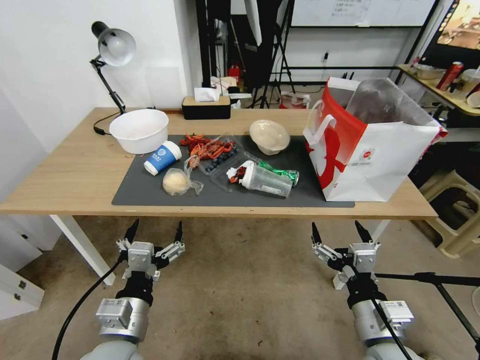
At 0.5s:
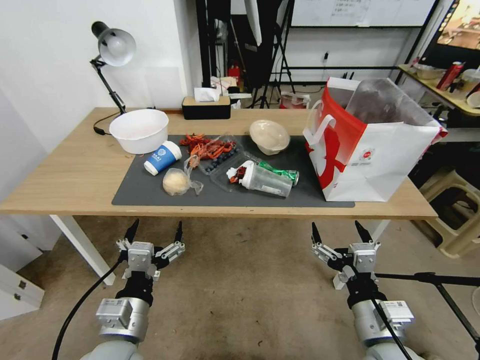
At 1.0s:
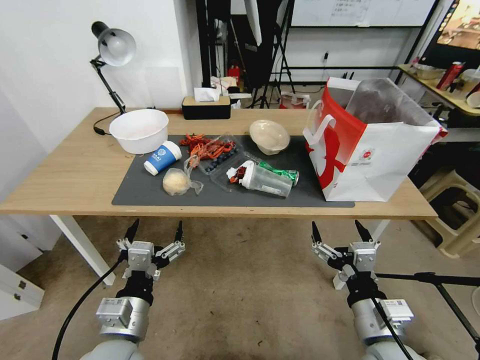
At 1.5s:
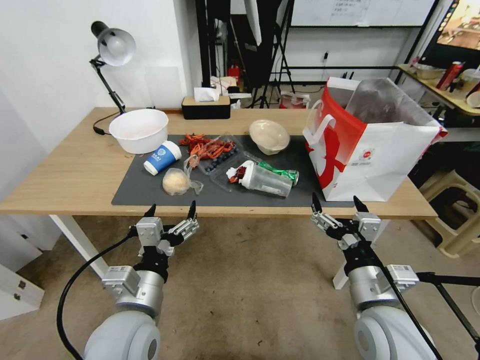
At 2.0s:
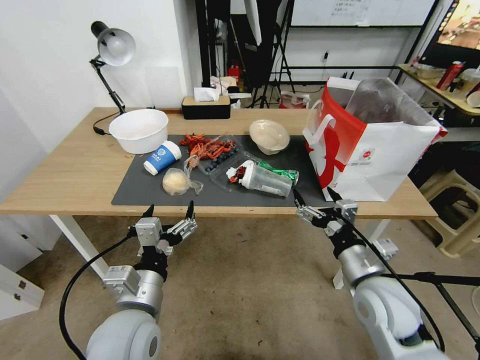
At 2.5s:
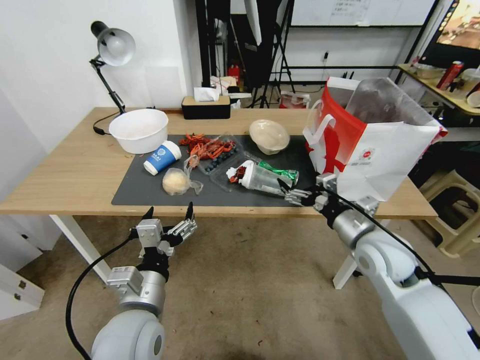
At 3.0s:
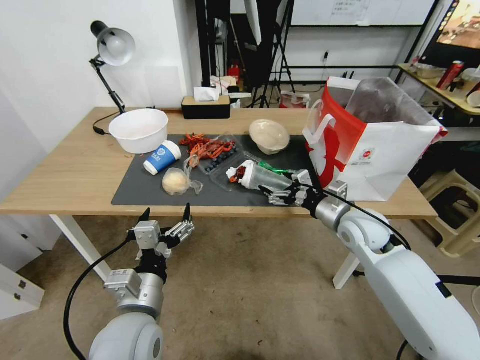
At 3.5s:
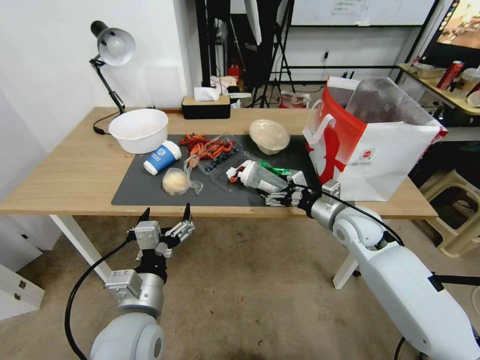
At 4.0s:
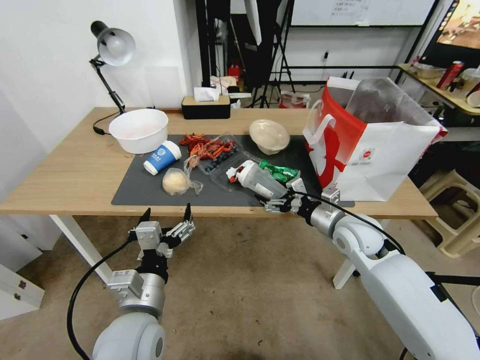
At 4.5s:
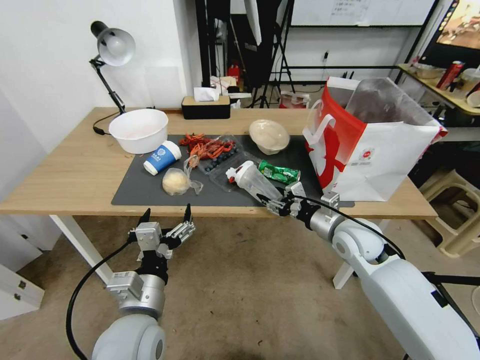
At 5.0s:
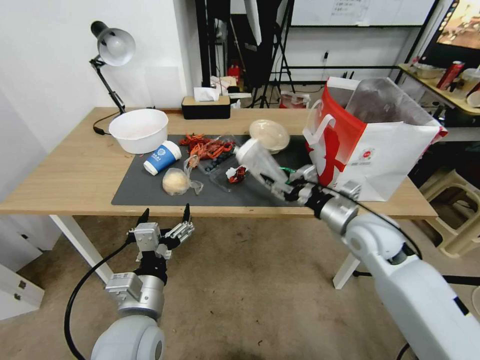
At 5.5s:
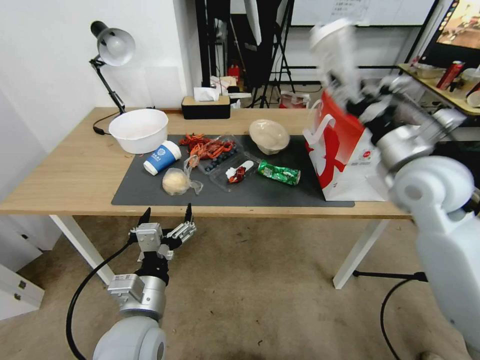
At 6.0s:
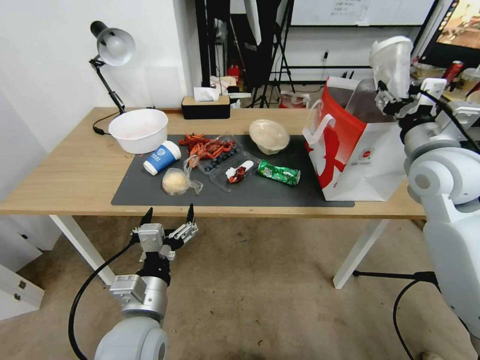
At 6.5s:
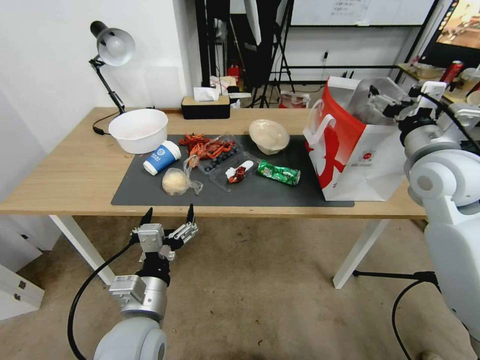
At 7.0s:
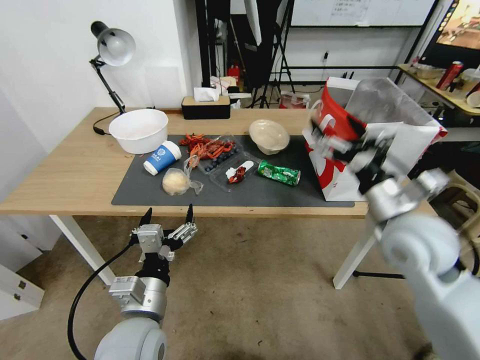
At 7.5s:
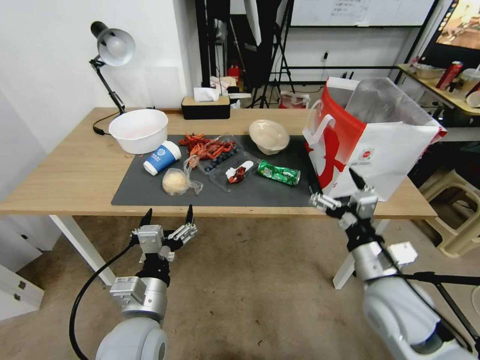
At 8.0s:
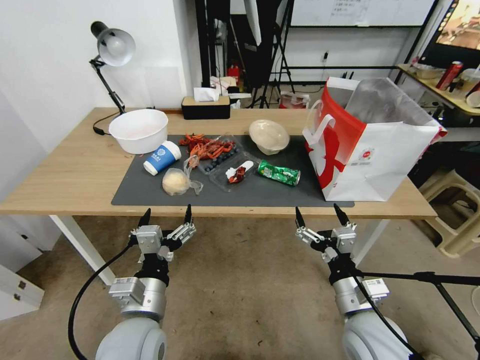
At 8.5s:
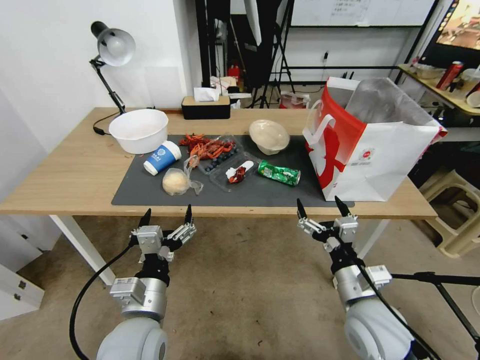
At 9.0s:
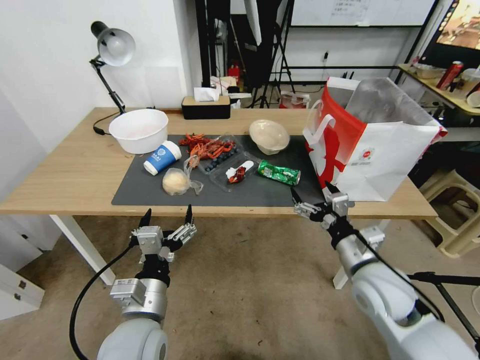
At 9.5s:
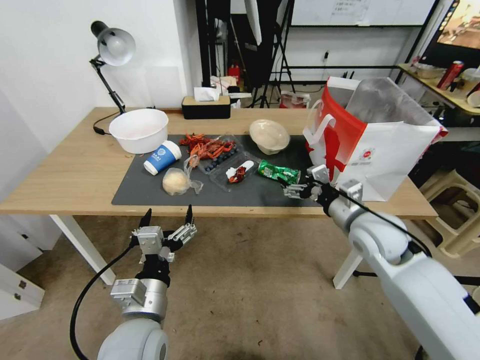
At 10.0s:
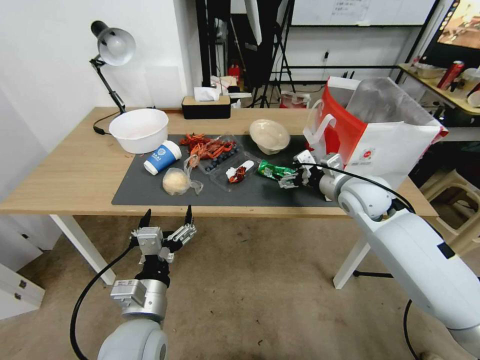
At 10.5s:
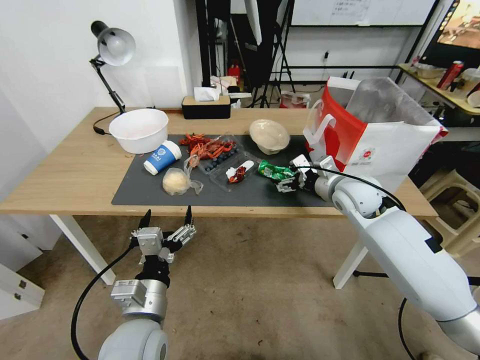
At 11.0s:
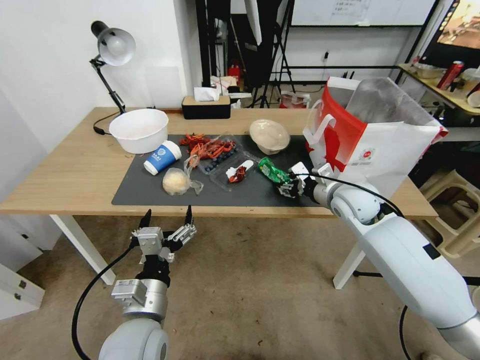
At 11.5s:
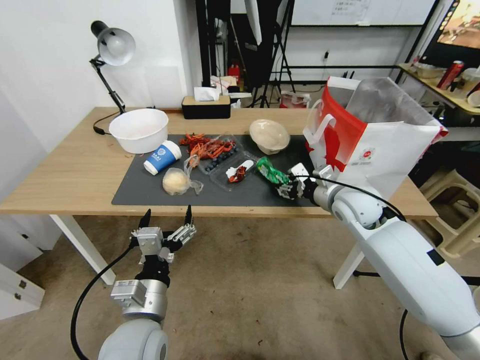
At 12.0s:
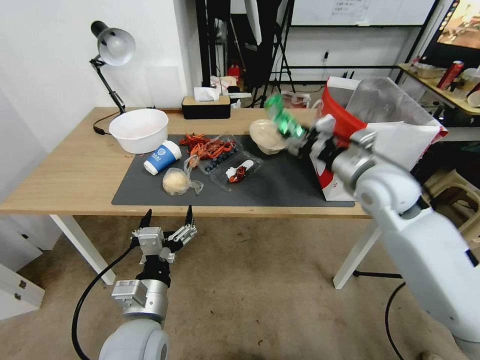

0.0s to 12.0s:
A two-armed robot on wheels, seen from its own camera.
2.0s to 4.0s: The right gripper moves forward, about 15 cm.
4.0s to 6.0s: The right gripper heads upward, covering roughly 20 cm, and closes up.
6.0s to 8.0s: The right gripper is displaced downward, backward and to the left by about 30 cm, and opens.
8.0s to 10.0s: The right gripper heads forward and upward, covering roughly 25 cm.
10.0s to 12.0s: The right gripper heads upward, covering roughly 5 cm, and closes.

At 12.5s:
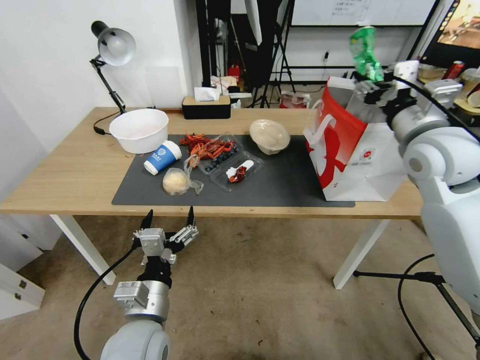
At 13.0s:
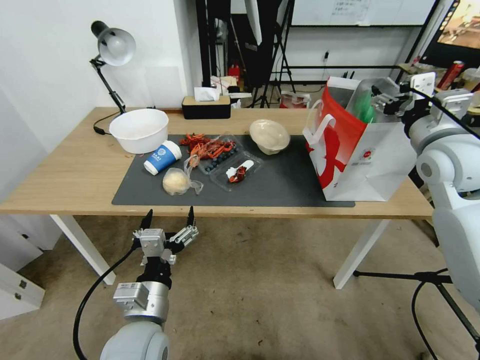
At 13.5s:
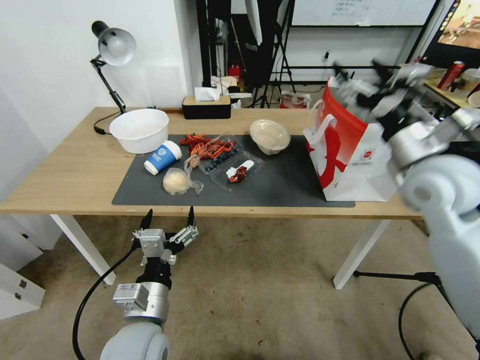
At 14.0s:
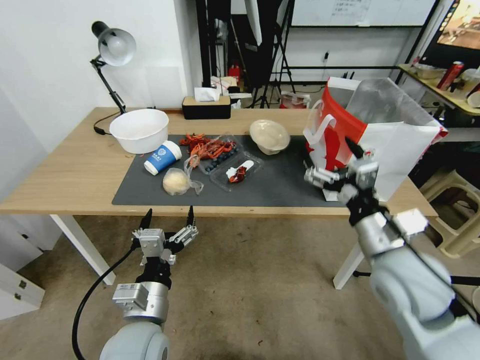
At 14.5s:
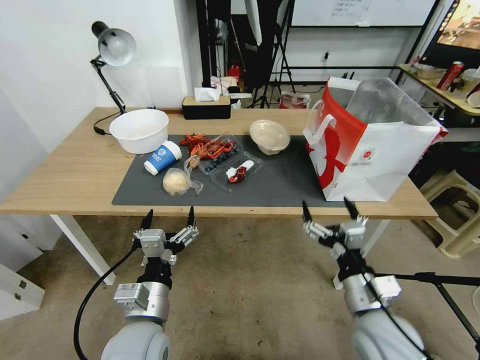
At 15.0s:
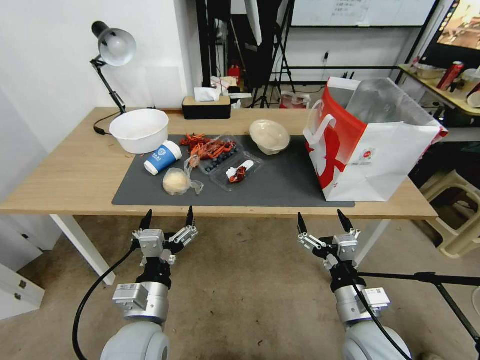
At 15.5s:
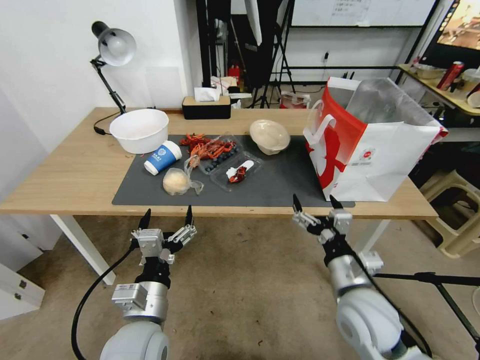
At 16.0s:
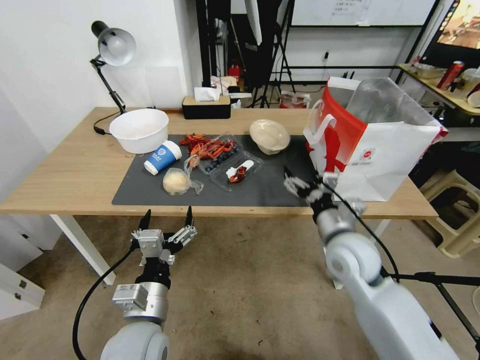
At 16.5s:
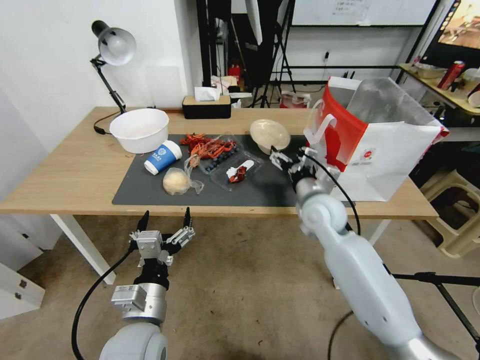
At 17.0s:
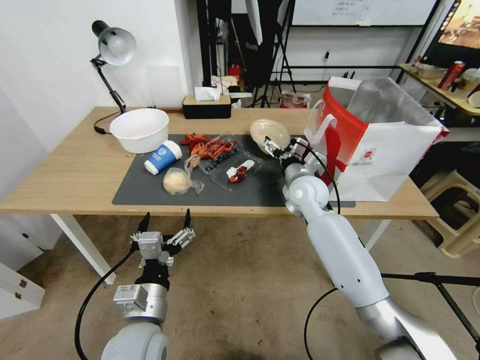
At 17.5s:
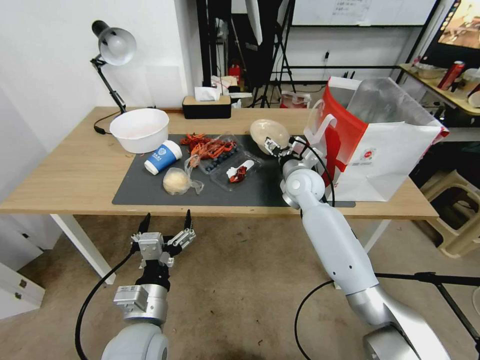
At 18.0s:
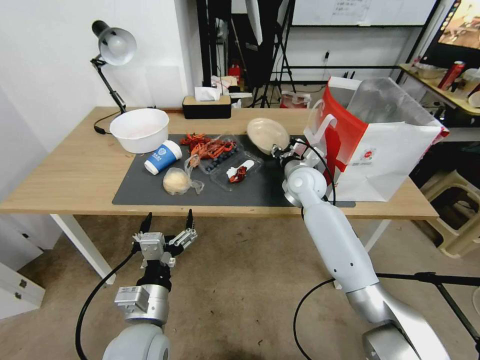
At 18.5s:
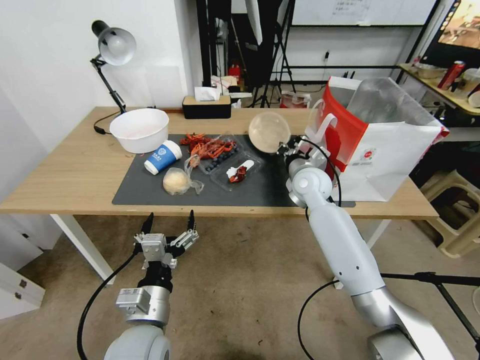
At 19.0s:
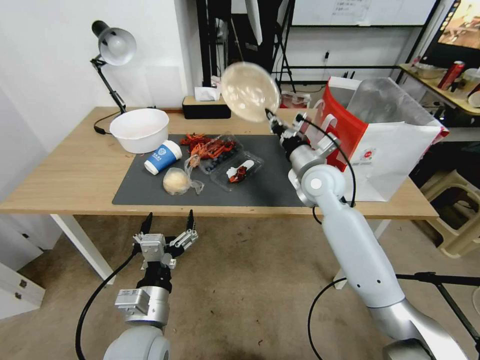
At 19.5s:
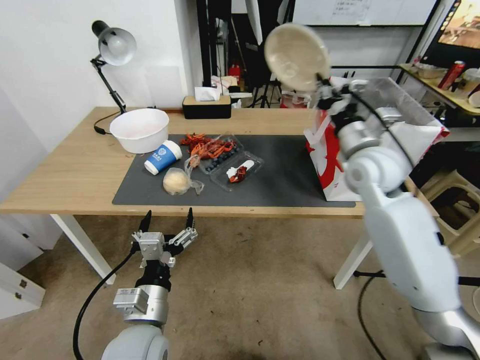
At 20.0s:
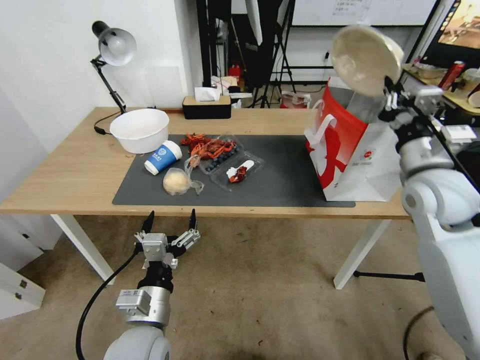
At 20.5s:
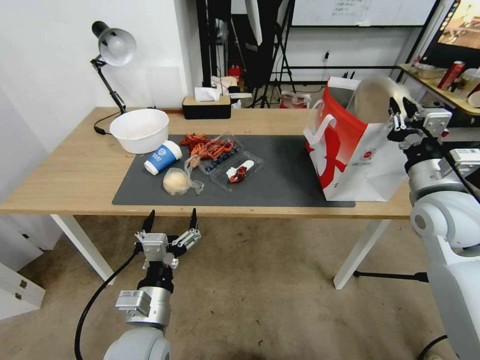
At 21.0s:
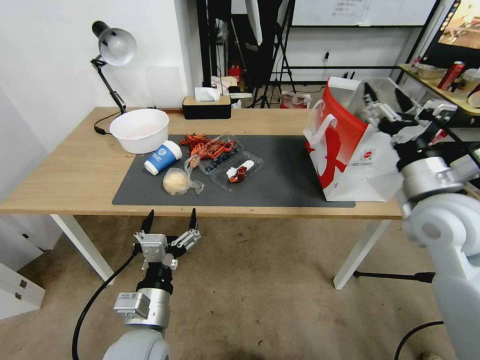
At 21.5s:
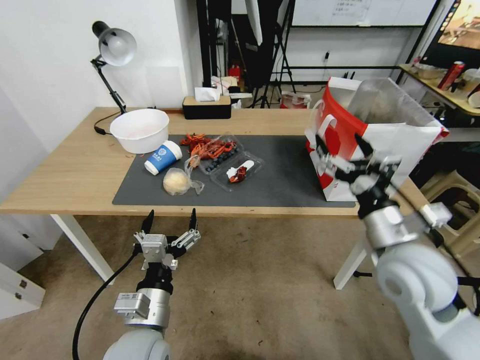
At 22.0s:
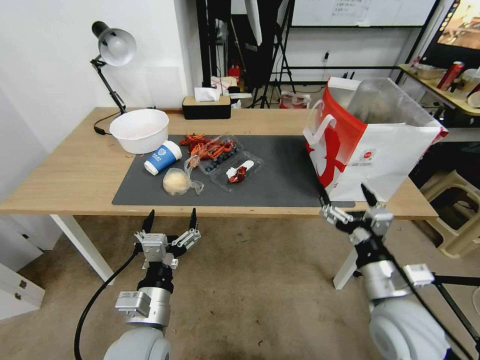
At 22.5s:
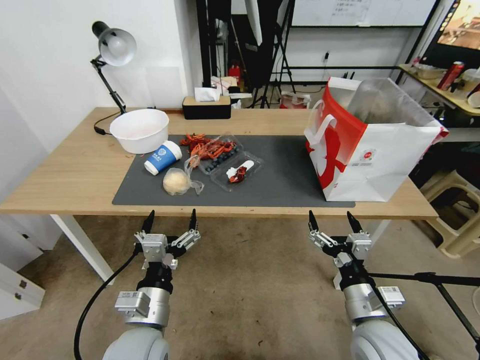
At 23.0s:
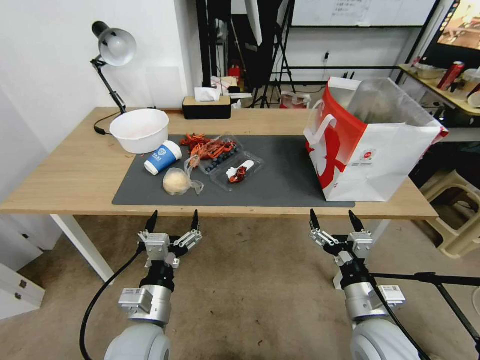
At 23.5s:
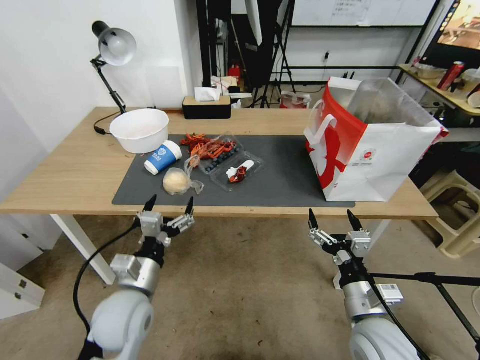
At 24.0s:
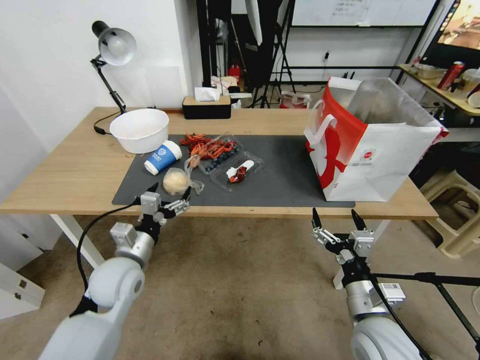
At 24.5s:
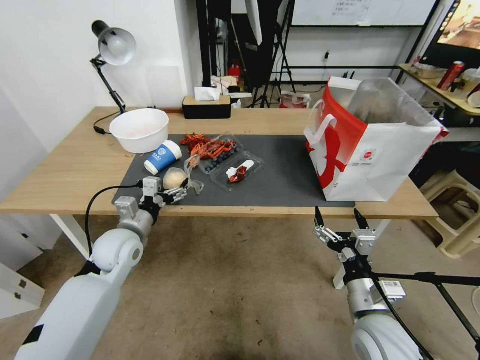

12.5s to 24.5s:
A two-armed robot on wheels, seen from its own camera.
12.5s to 14.5s: The right gripper travels downward and backward by approximately 35 cm, and opens.
14.5s to 16.5s: The right gripper heads forward, covering about 25 cm.
16.5s to 18.5s: The right gripper is displaced forward by roughly 5 cm, and closes its fingers.
18.5s to 20.5s: The right gripper shifts approximately 25 cm to the right, backward and upward.
20.5s to 22.5s: The right gripper heads downward, backward and to the left, covering some 25 cm, and opens up.
22.5s to 24.5s: The left gripper moves forward and to the left, some 20 cm.

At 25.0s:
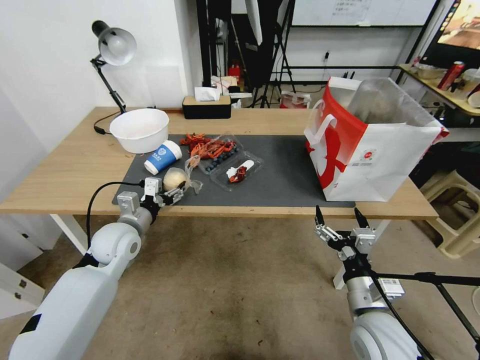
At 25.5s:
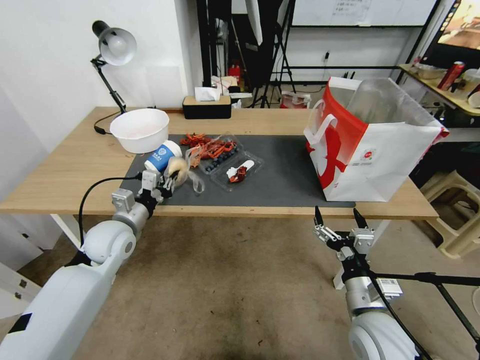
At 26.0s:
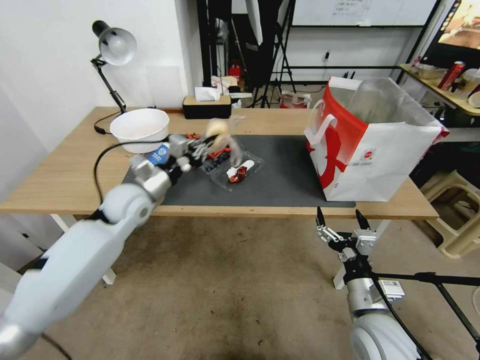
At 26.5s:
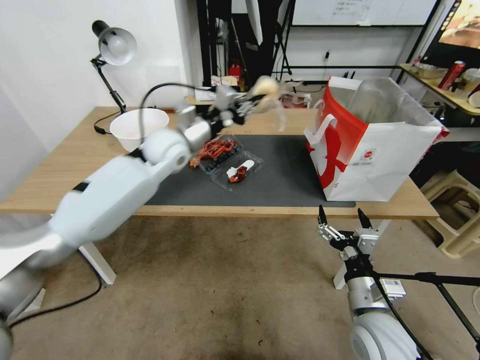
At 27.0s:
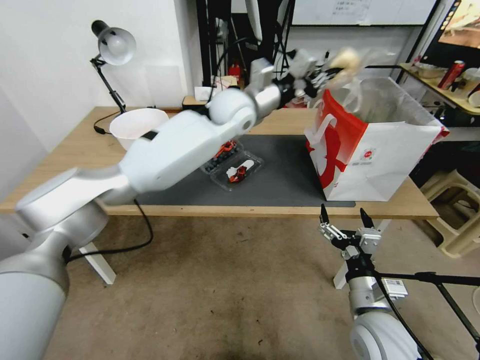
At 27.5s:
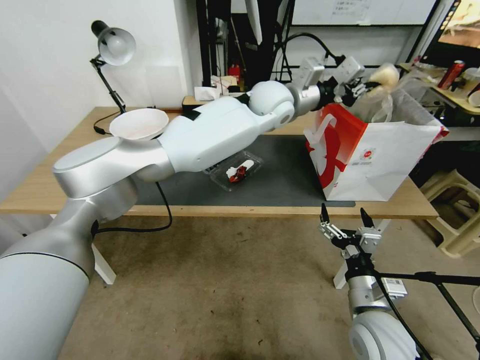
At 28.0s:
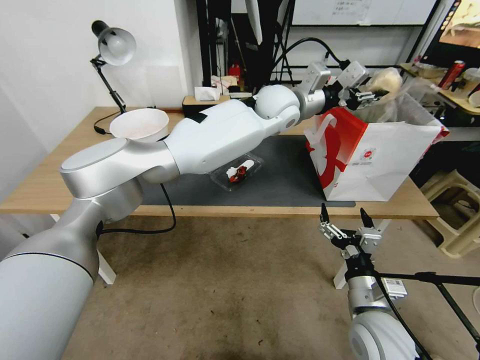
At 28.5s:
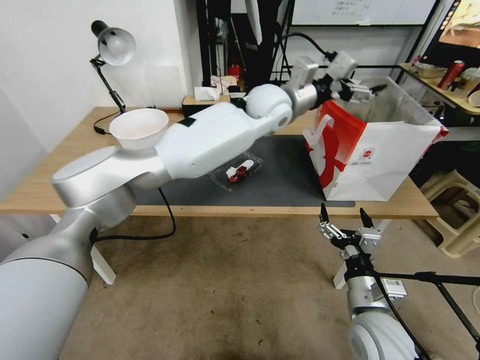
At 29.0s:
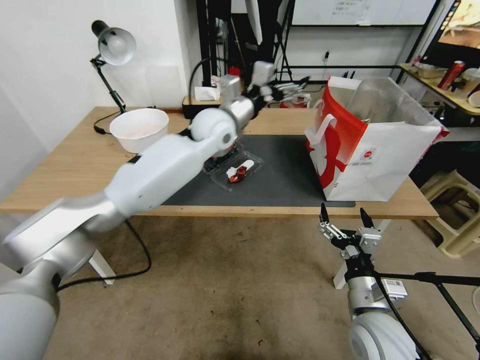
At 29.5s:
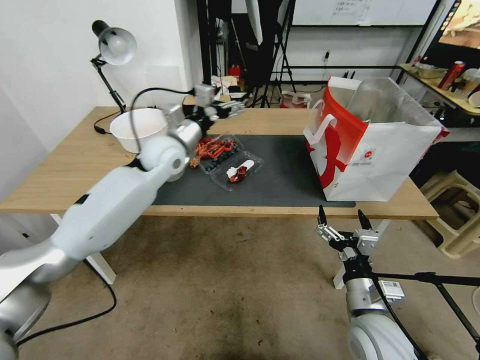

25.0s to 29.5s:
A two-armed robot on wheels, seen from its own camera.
25.0s to 27.0s: The left gripper shifts roughly 40 cm to the right, upward and forward, and closes.
27.0s to 29.5s: The left gripper moves to the left and downward, roughly 20 cm, and opens.
